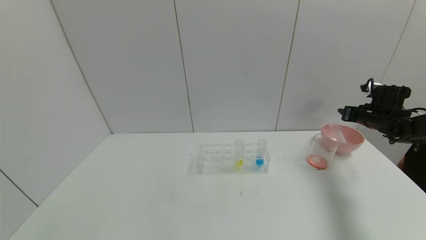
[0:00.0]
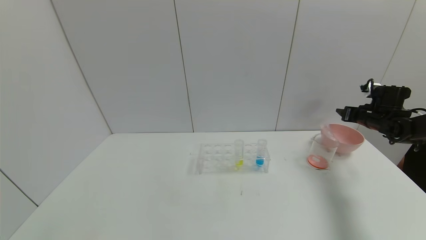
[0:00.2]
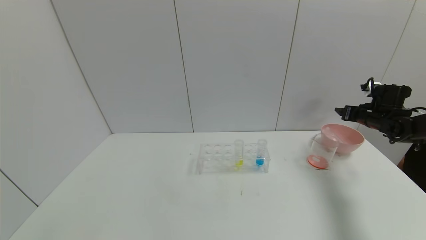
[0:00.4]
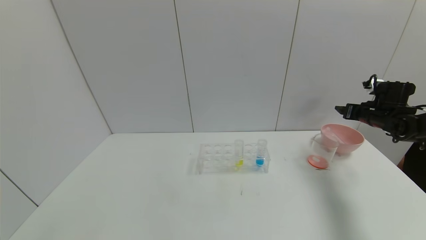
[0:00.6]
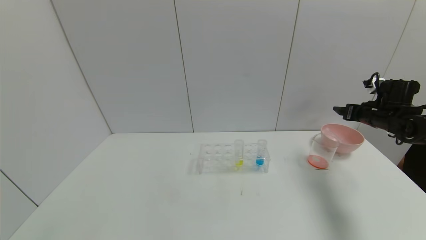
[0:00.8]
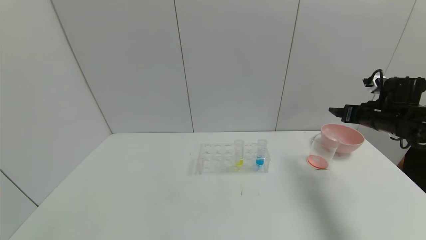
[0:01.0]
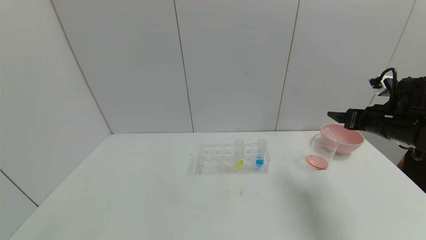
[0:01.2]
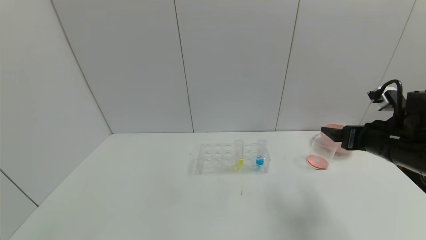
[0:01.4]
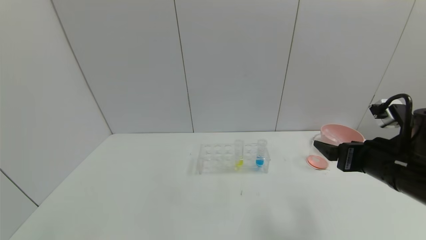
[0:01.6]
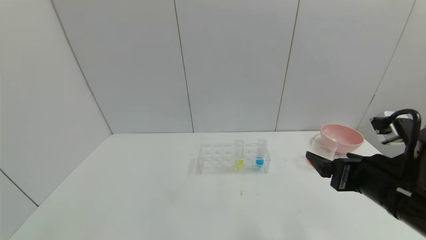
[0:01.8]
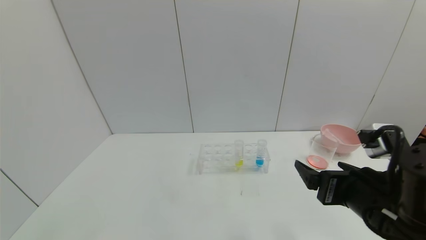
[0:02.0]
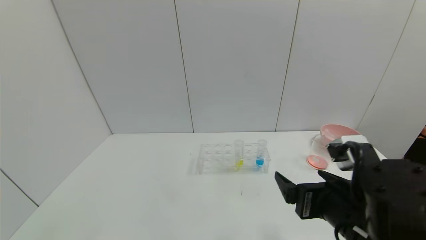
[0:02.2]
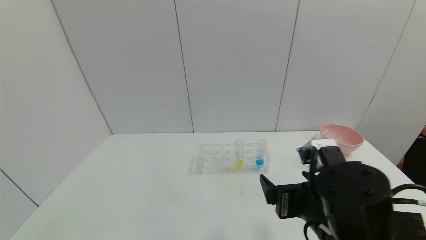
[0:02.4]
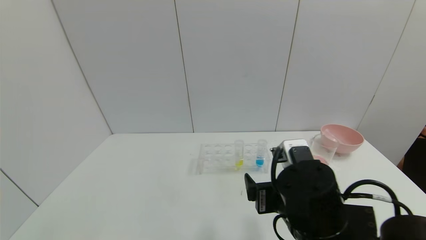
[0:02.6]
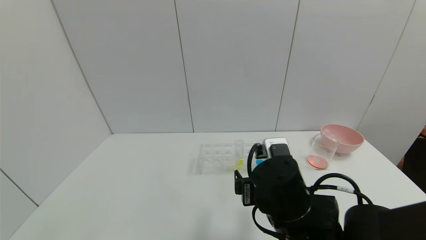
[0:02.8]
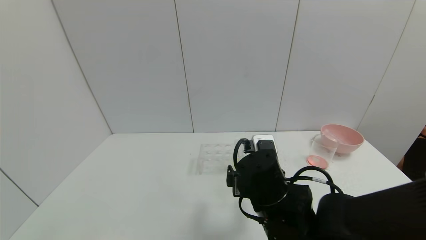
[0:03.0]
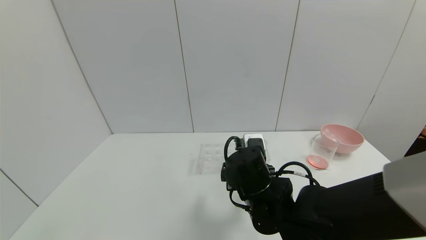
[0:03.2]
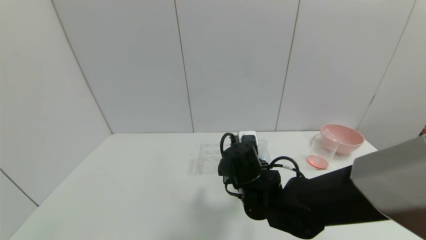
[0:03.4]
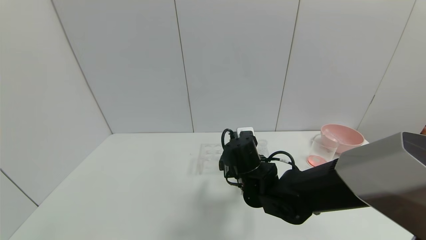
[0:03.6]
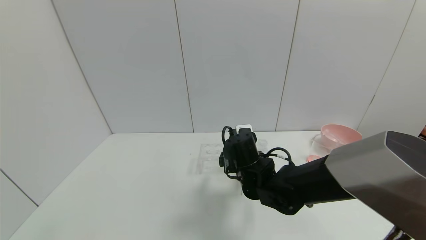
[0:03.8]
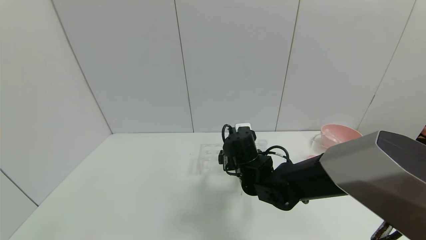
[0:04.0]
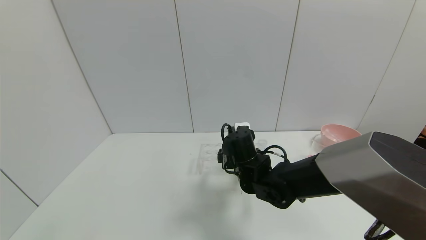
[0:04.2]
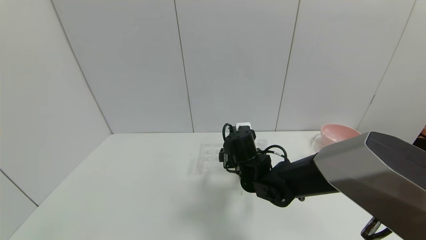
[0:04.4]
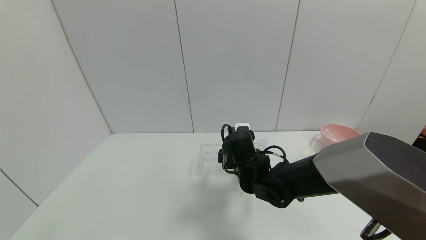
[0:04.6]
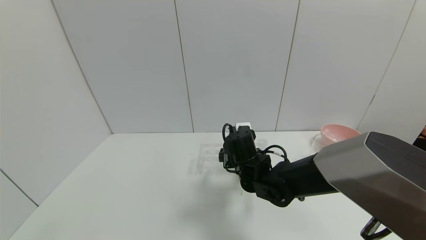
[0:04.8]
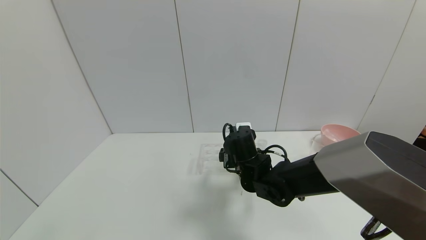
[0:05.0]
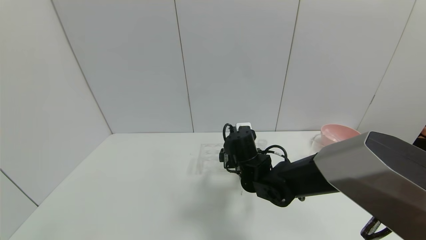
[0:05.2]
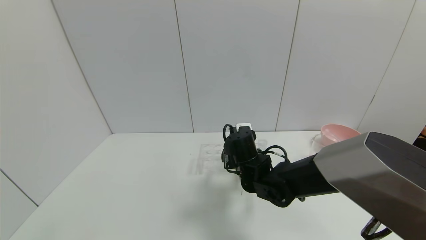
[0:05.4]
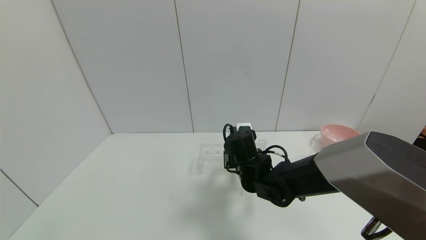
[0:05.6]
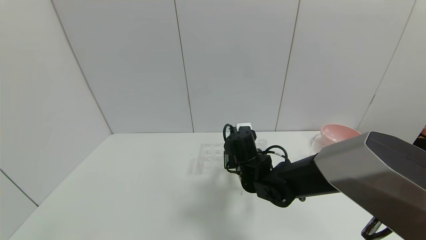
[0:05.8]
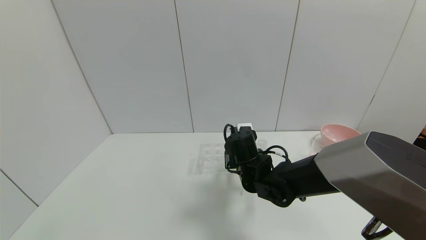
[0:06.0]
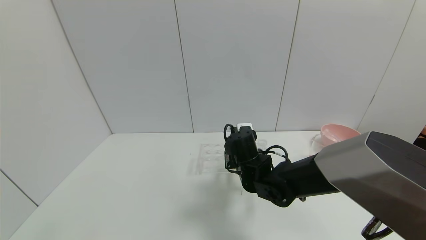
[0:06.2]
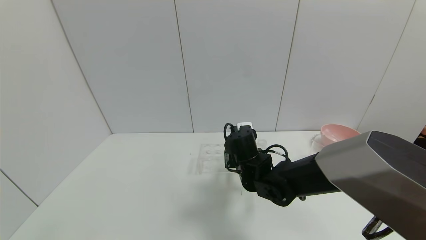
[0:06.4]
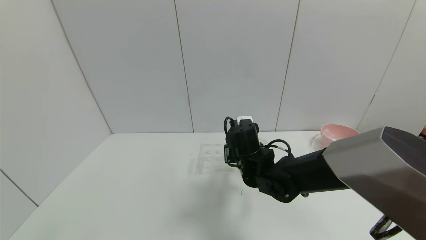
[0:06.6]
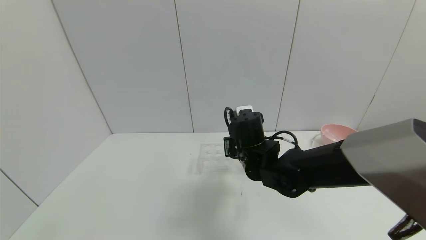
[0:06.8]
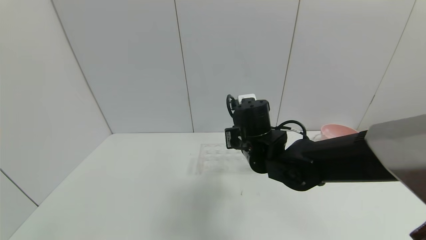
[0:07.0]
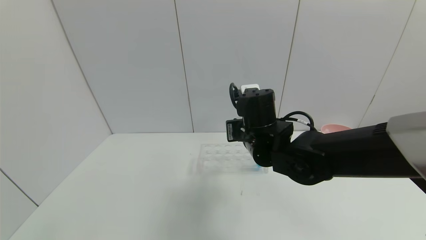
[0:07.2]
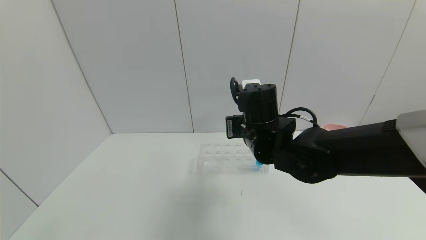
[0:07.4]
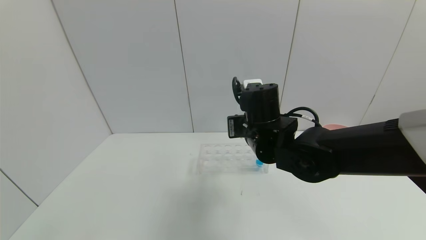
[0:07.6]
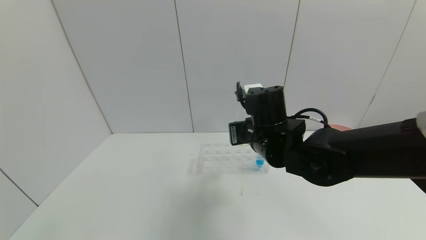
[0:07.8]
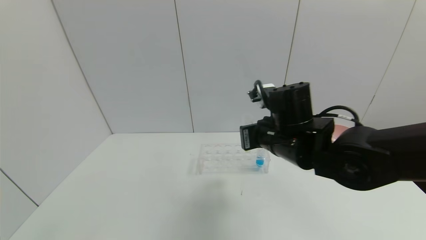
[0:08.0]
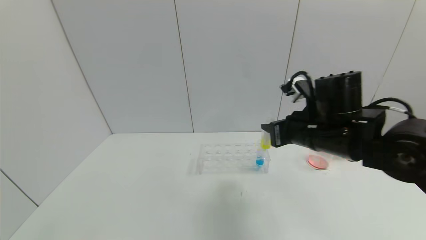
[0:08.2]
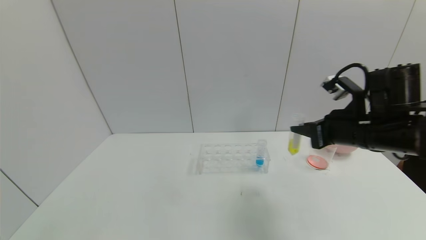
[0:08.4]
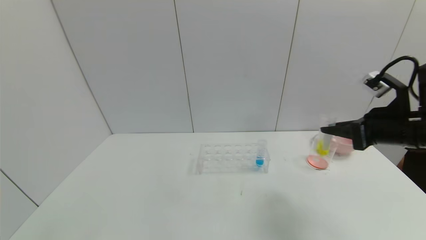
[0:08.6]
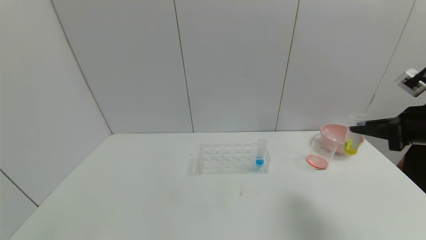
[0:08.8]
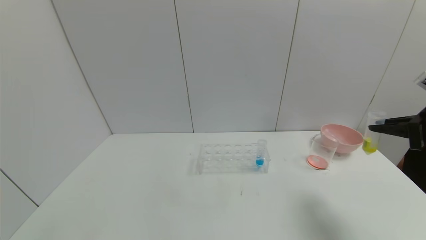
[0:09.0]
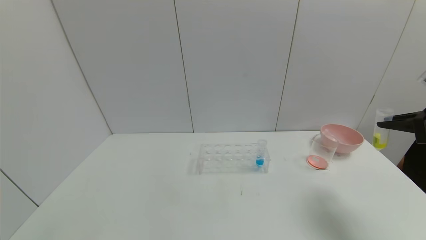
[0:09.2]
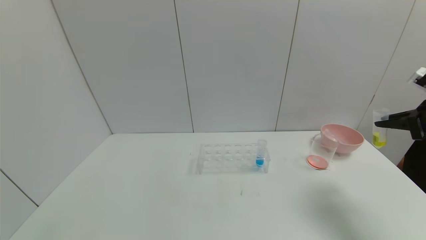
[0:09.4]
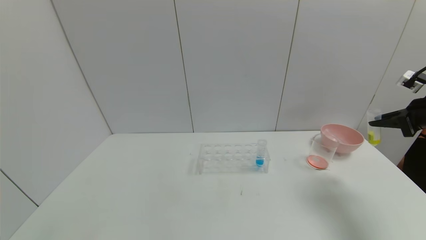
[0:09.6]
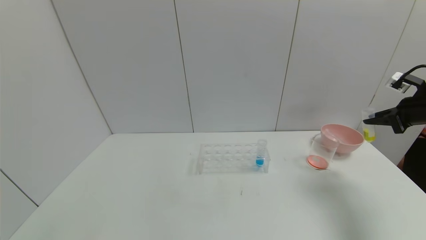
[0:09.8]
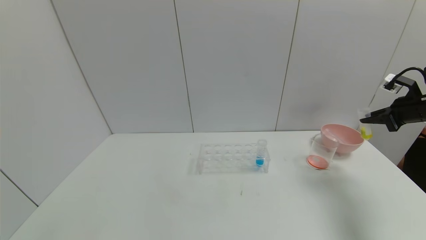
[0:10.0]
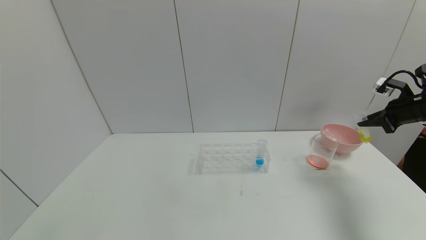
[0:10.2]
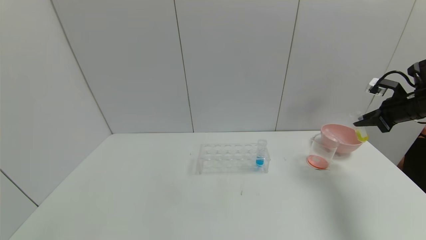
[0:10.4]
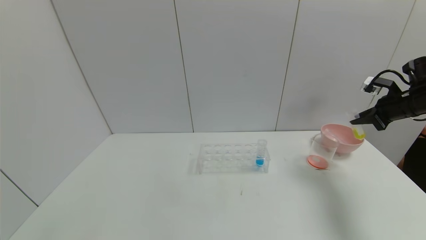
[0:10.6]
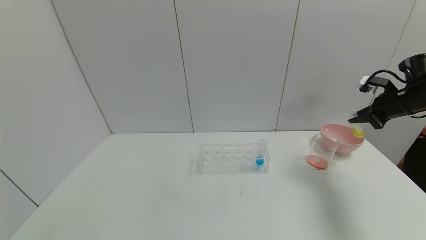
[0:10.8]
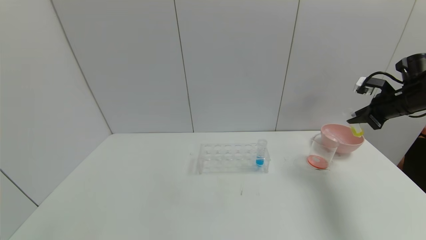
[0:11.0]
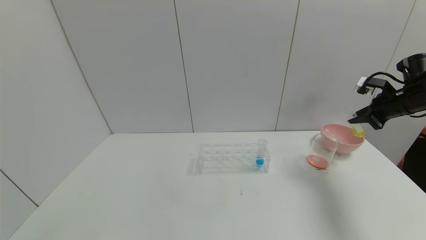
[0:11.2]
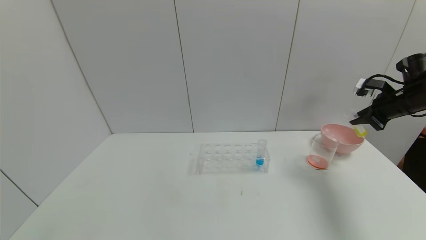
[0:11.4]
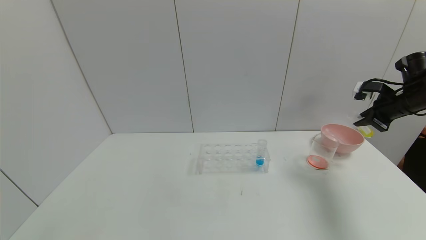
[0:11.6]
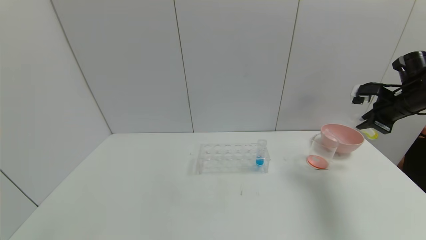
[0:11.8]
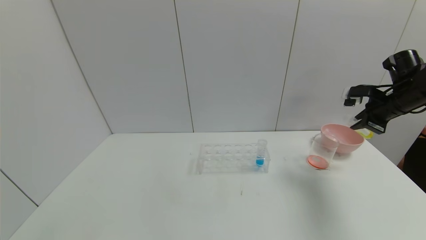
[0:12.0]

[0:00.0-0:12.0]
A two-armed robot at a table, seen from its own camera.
Task of the whole recording: pick up the test tube with yellow pigment and the test tube with red pigment by grippers and pour them into the beaker.
Step, 0:01.2 to 0:08.4: Pick up the test tube containing the yellow reagent with right gripper.
0:00.0 to 0:01.6: The right gripper moves backward and to the left, approximately 30 cm, and opens.
0:01.6 to 0:03.0: The right gripper goes approximately 20 cm to the left.
0:03.0 to 0:04.4: The right gripper travels forward by roughly 10 cm.
0:04.4 to 0:06.0: The right gripper closes.
0:06.0 to 0:07.6: The right gripper goes some 10 cm upward.
0:07.6 to 0:09.0: The right gripper travels to the right by roughly 35 cm.
0:09.0 to 0:10.4: The right gripper heads forward, covering about 15 cm.
0:10.4 to 0:12.0: The right gripper is displaced to the left by some 5 cm.

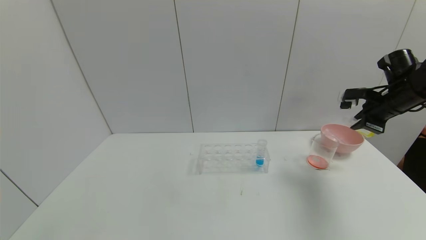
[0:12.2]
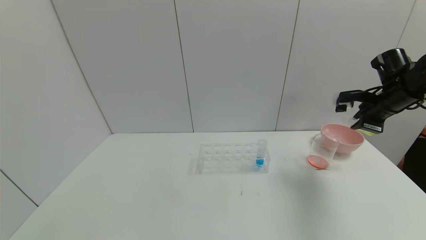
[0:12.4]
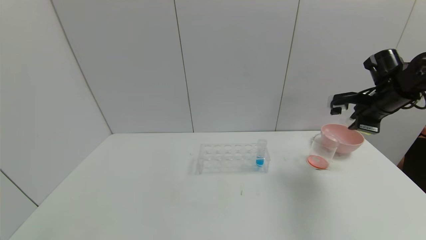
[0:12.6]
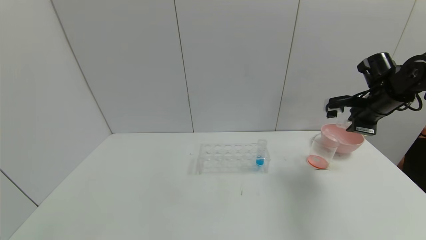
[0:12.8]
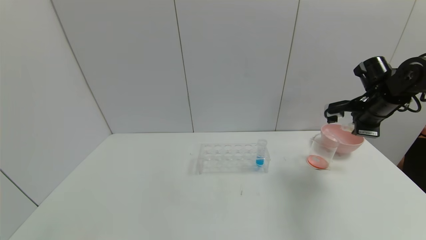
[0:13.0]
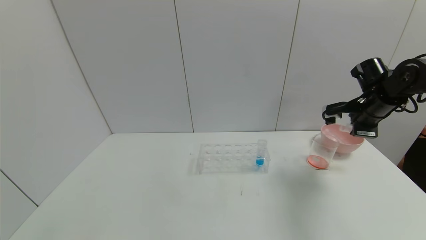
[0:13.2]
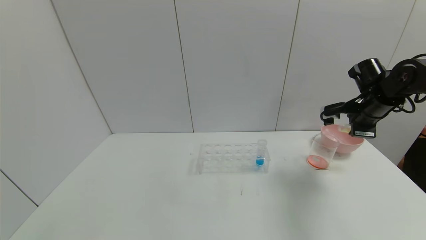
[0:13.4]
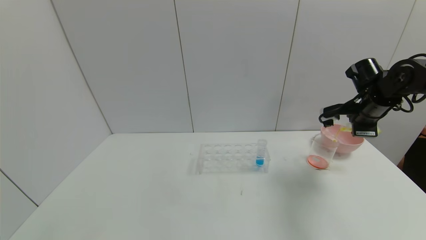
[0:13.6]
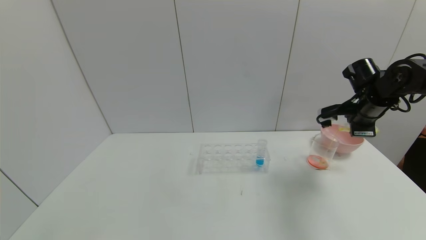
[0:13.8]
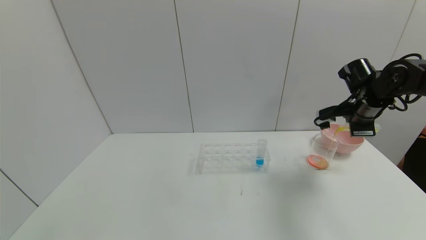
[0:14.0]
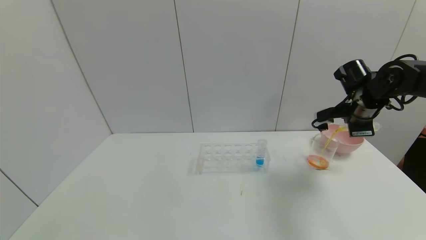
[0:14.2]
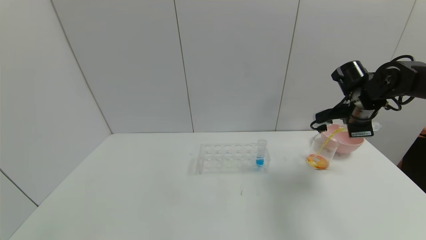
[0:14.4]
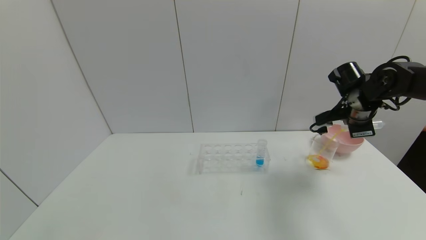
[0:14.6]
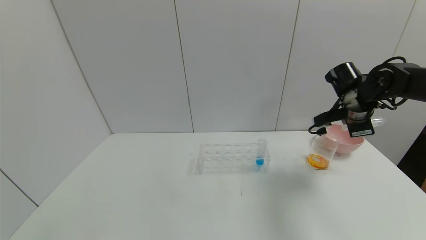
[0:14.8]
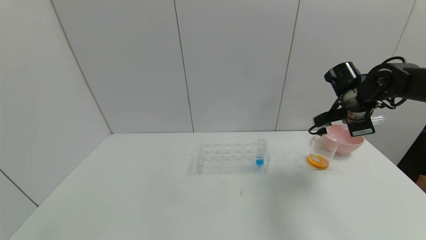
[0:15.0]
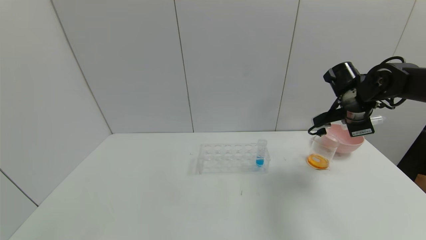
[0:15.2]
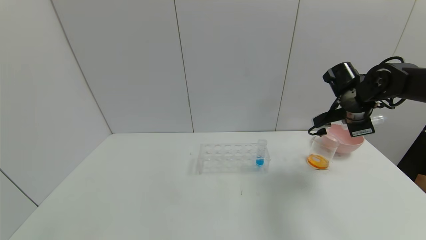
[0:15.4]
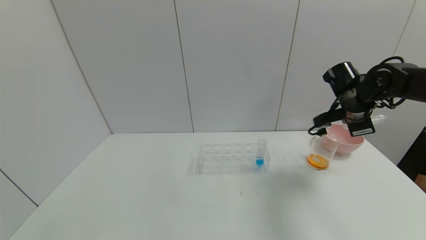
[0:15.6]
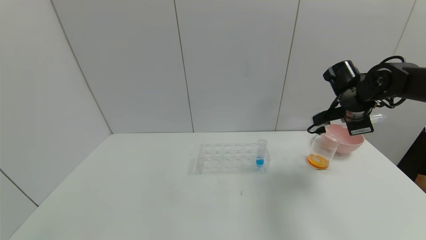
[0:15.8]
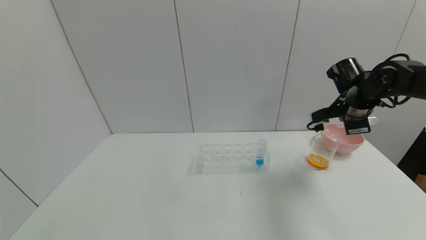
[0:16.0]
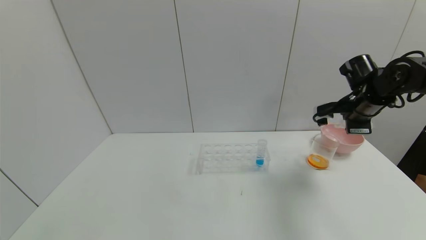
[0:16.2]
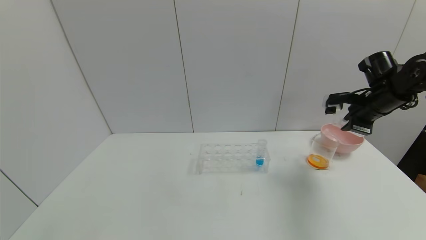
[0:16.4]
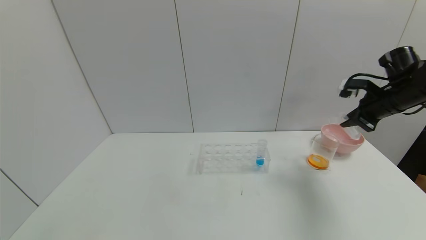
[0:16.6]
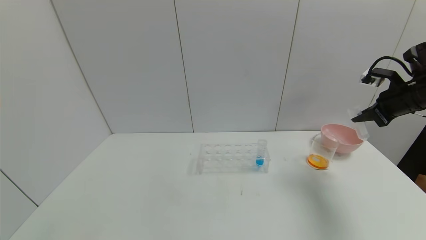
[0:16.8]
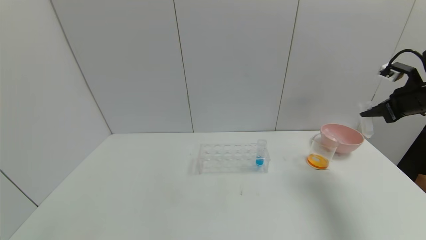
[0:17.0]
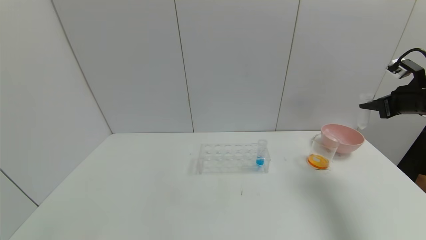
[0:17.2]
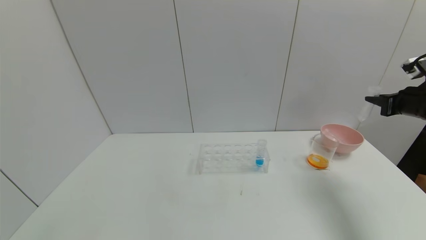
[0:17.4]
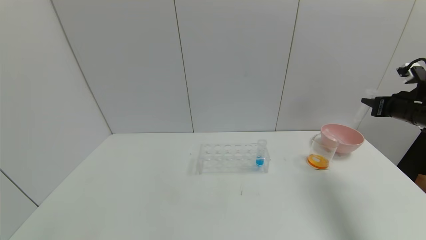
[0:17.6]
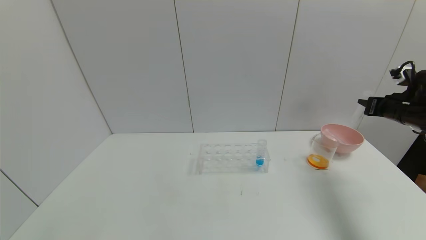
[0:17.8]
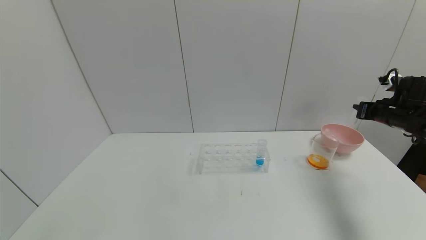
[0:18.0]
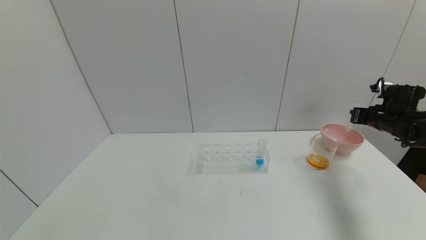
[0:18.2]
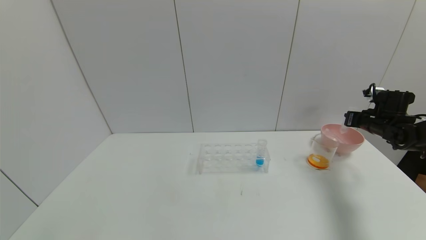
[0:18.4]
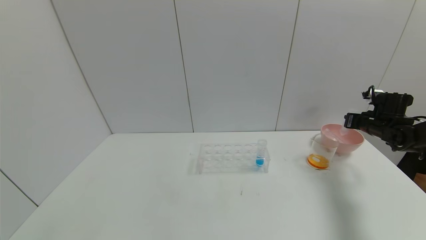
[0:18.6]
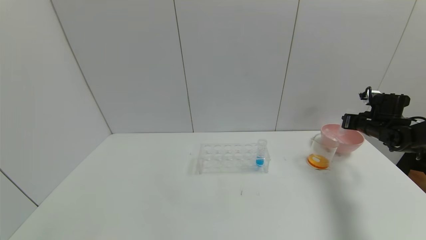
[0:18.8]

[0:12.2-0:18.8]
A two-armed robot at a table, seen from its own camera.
Task of the whole recording: pick up the test tube with yellow pigment and the test tube with red pigment by grippers and pour them into the beaker.
Step, 0:12.2 to 0:17.2: Pour the yellow reagent into the graduated cylinder with right gripper.
0:12.2 to 0:13.8: The right gripper goes roughly 5 cm to the left.
0:15.4 to 0:17.2: The right gripper heads to the right, covering roughly 15 cm.
0:17.2 to 0:18.8: The right gripper moves downward and forward, some 15 cm.
